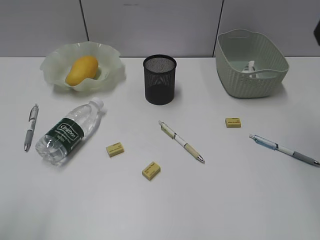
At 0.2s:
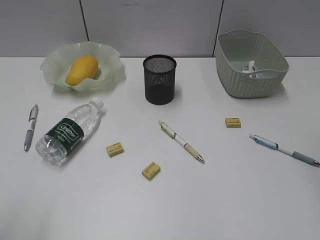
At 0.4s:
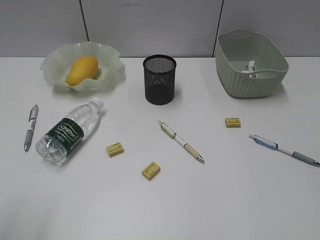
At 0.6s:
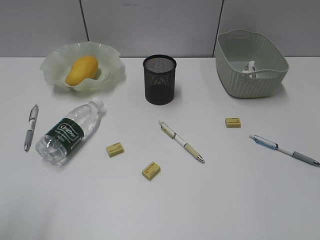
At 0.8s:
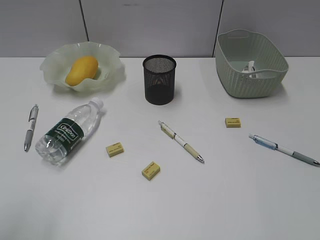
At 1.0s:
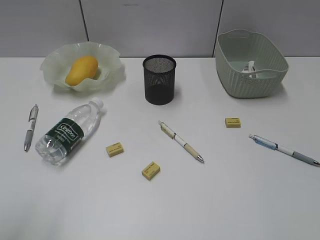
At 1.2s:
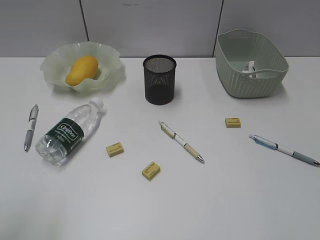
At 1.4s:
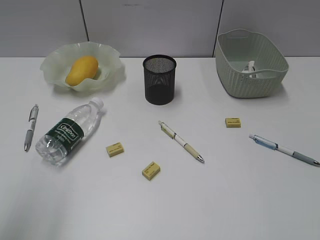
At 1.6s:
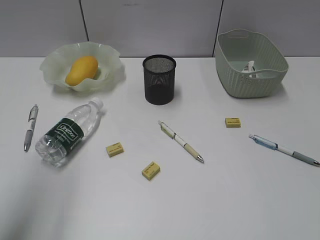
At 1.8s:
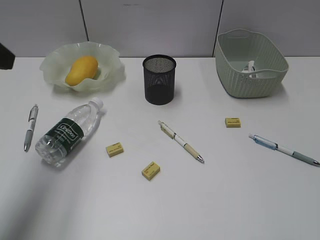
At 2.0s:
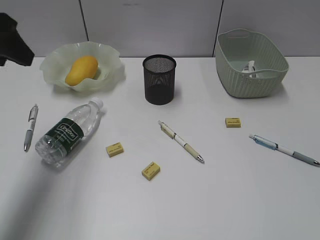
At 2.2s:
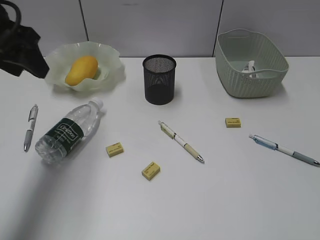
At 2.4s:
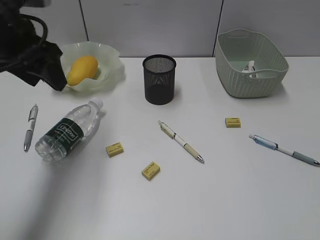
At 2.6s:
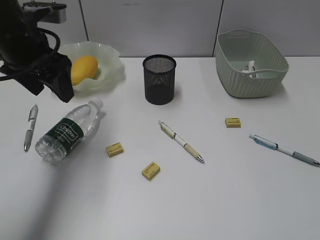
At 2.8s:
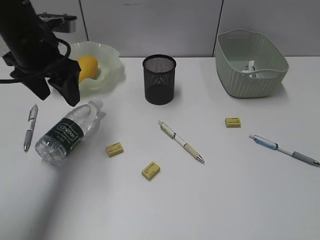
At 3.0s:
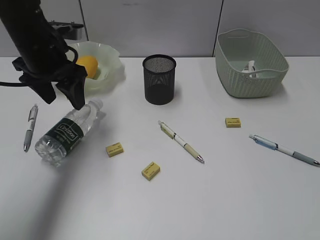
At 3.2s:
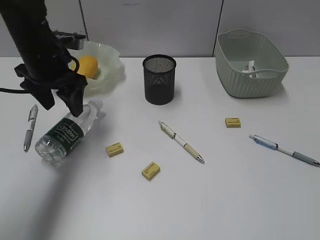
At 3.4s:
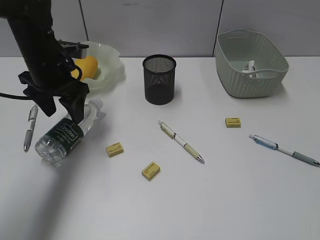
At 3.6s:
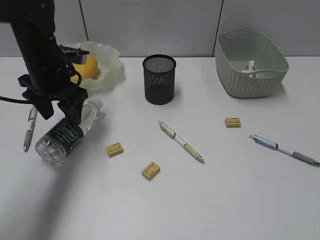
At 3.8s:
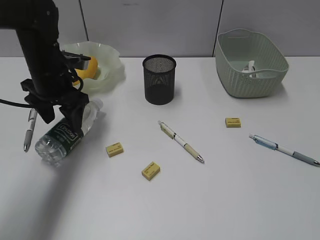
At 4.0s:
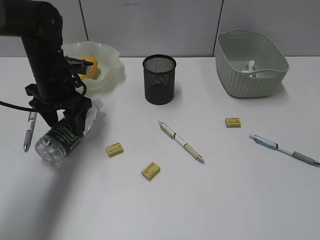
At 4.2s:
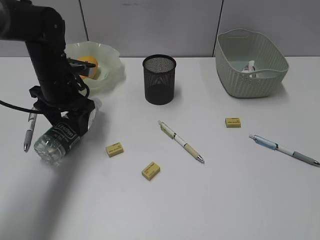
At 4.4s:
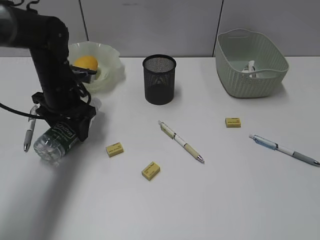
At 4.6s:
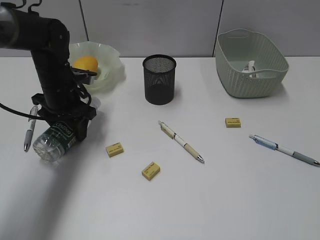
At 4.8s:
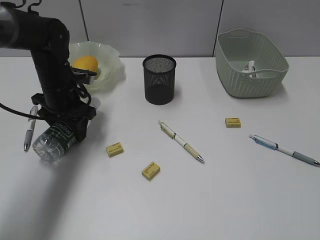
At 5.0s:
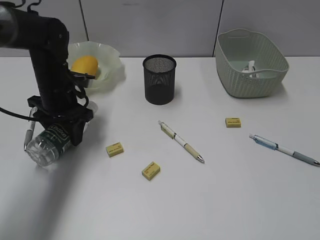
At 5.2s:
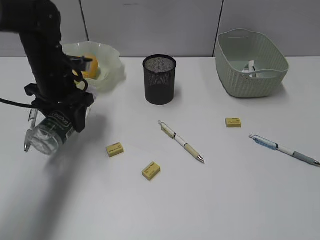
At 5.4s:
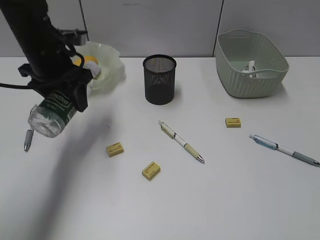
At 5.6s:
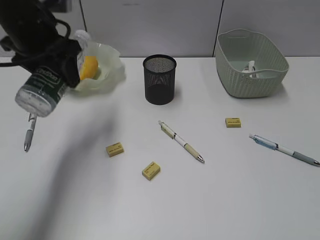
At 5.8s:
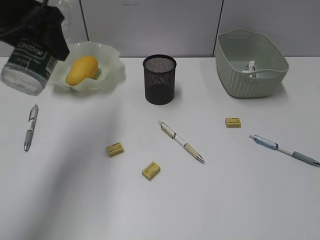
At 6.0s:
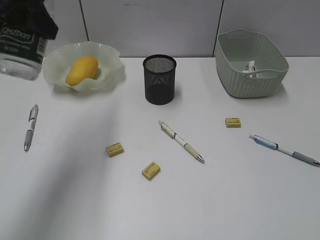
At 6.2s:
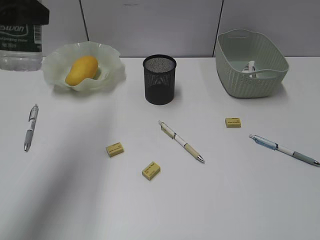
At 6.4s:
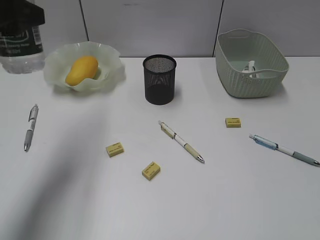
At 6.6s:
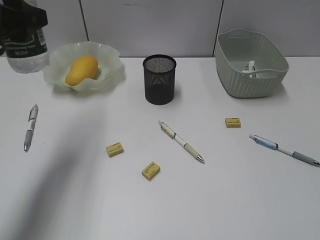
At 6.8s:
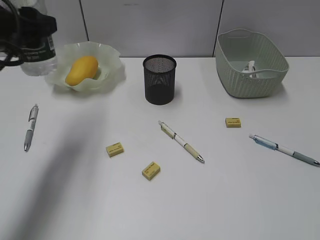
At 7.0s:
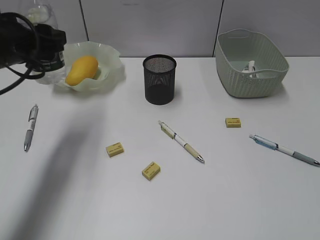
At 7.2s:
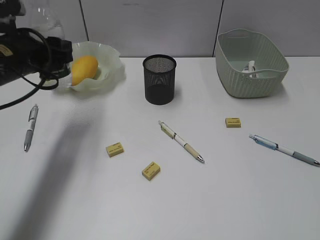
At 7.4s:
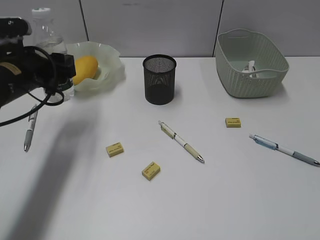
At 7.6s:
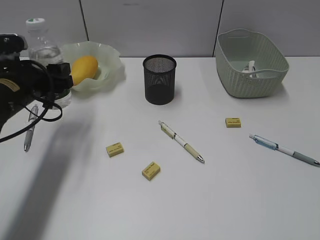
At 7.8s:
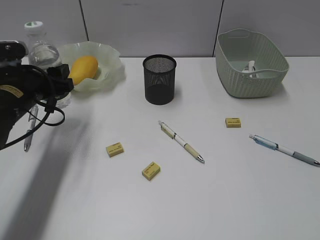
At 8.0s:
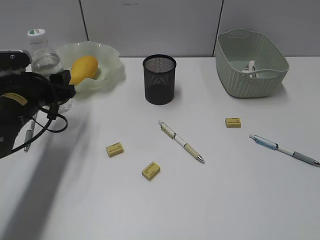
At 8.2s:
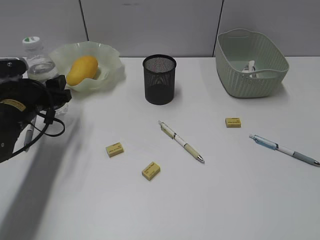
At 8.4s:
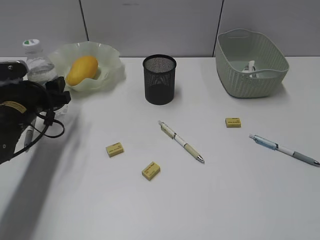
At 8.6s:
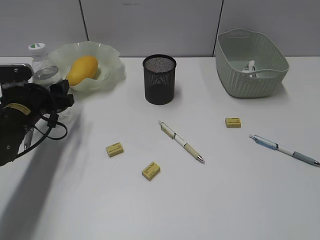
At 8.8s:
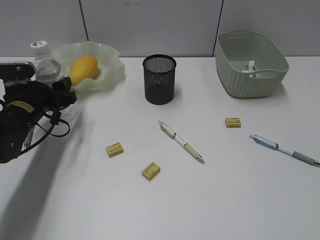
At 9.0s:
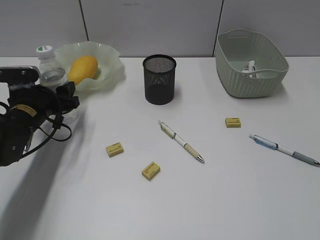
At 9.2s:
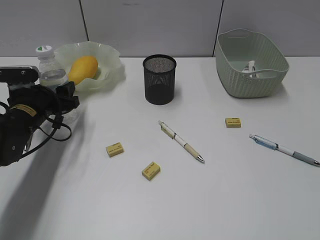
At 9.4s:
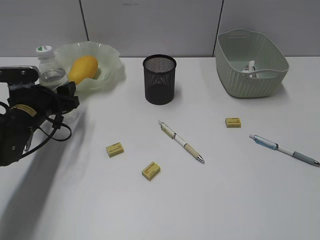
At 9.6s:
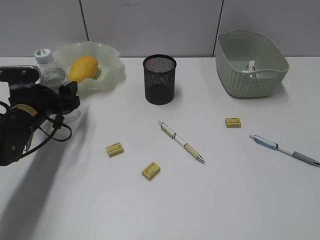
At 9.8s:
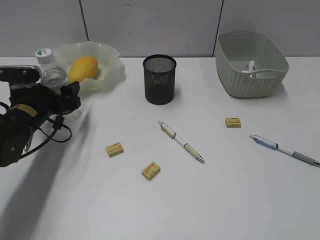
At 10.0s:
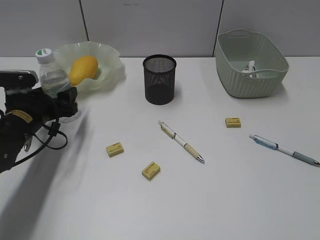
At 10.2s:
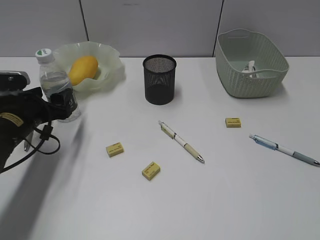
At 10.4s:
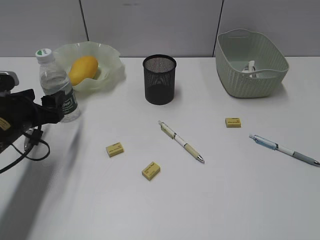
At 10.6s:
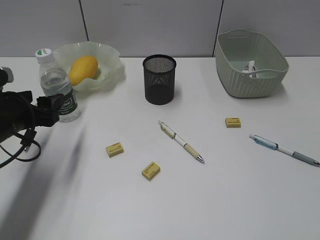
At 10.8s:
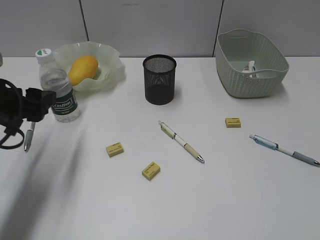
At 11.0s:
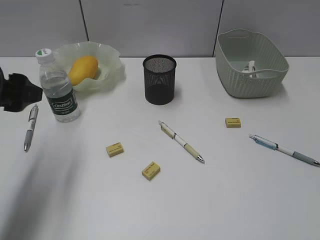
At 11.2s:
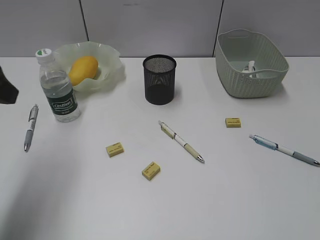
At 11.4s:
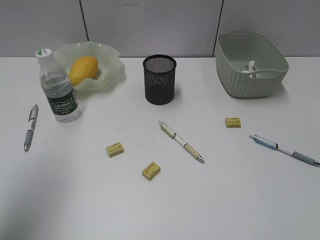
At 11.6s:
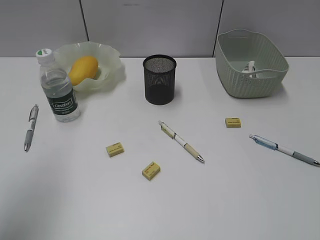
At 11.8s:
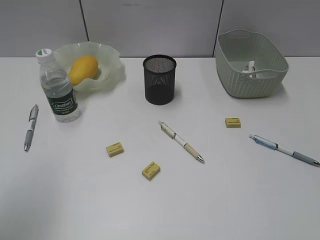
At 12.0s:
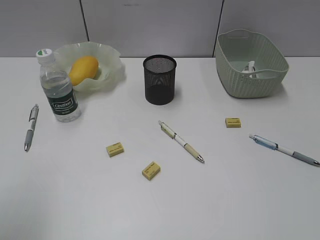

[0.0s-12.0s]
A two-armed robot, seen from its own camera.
Step, 0.0s to 4.6s: Grasp the bottle with left gripper.
Step, 4.8s to 10.2s: Stand the bottle with left gripper.
0.0s to 1.6s: The left gripper is displaced forward by approximately 10 cm.
1.6s to 3.0s: The left gripper is displaced forward and downward by about 25 cm.
3.0s to 4.4s: The left gripper shifts some 10 cm downward.
4.4s to 6.0s: The left gripper travels upward and backward by roughly 25 cm.
6.0s to 7.6s: The left gripper travels downward by some 20 cm.
7.6s to 9.0s: The left gripper goes some 5 cm downward.
9.0s to 10.4s: The left gripper moves backward, approximately 5 cm.
10.4s to 12.0s: The left gripper moves upward and backward, about 30 cm.

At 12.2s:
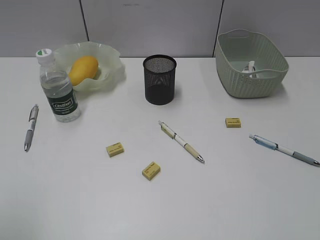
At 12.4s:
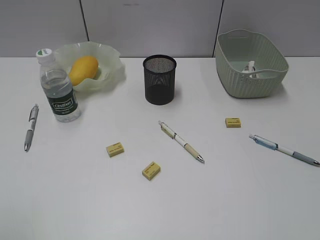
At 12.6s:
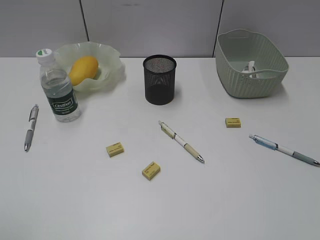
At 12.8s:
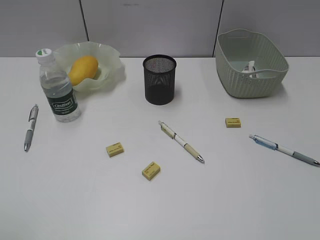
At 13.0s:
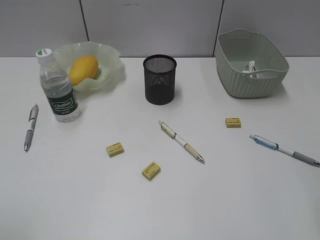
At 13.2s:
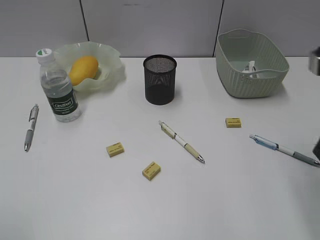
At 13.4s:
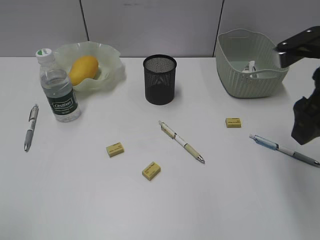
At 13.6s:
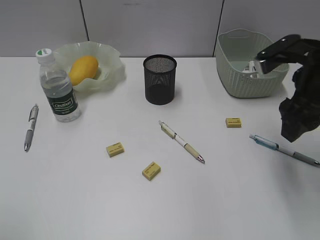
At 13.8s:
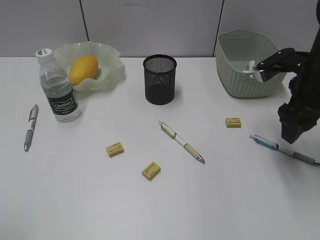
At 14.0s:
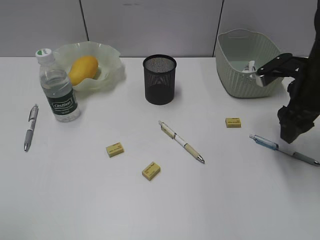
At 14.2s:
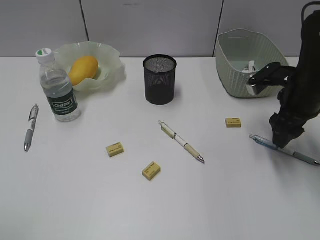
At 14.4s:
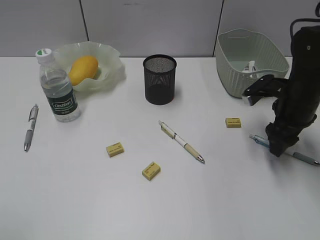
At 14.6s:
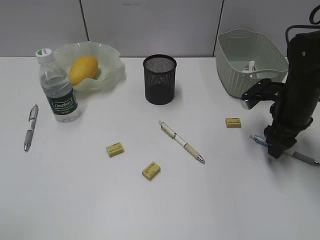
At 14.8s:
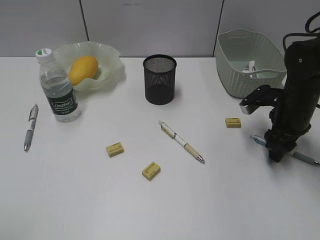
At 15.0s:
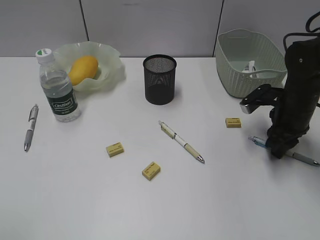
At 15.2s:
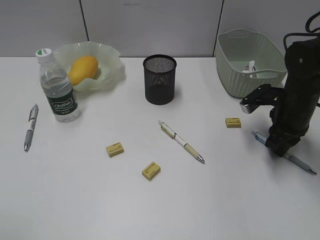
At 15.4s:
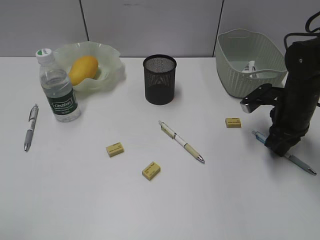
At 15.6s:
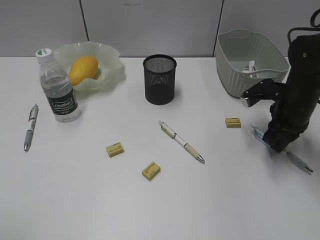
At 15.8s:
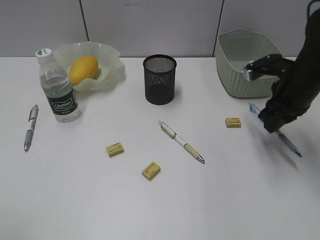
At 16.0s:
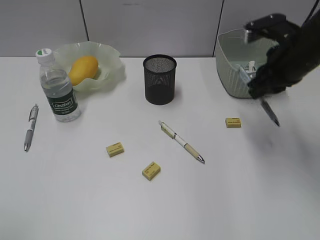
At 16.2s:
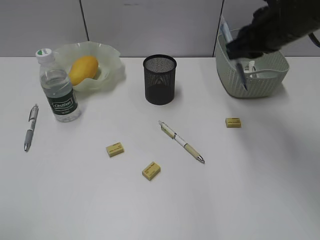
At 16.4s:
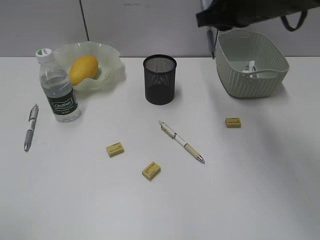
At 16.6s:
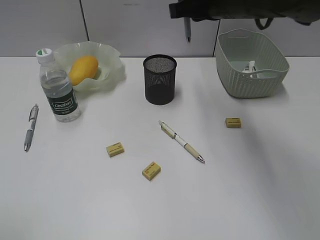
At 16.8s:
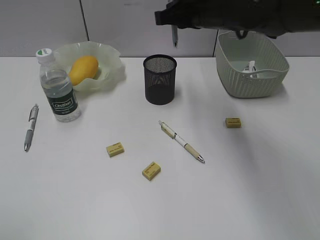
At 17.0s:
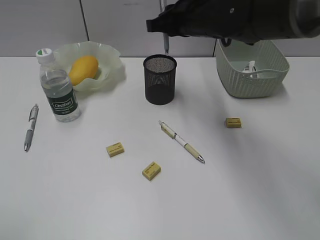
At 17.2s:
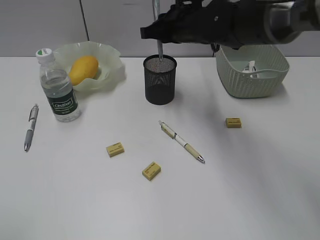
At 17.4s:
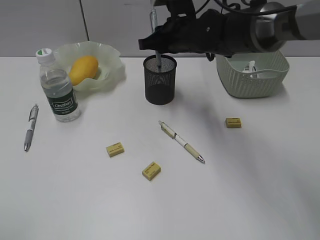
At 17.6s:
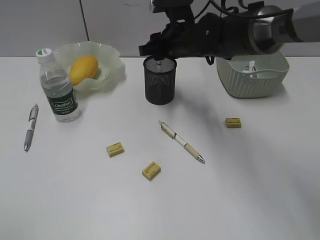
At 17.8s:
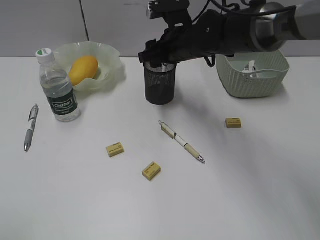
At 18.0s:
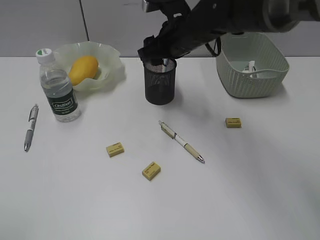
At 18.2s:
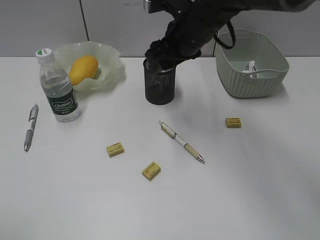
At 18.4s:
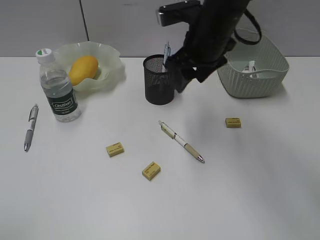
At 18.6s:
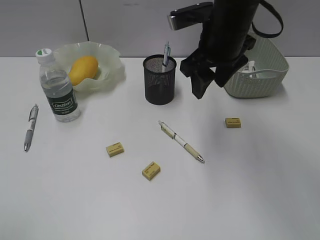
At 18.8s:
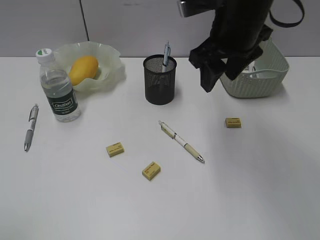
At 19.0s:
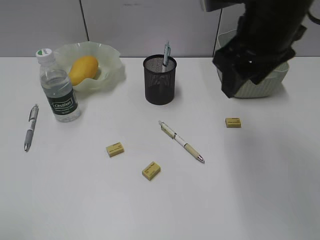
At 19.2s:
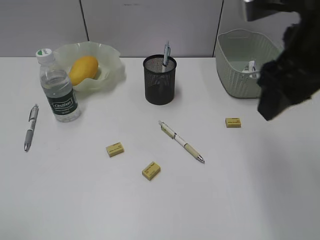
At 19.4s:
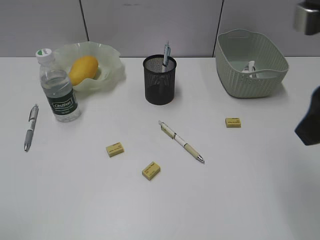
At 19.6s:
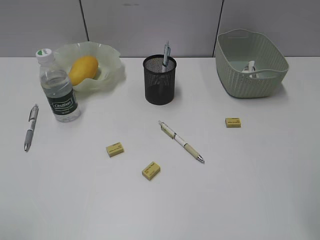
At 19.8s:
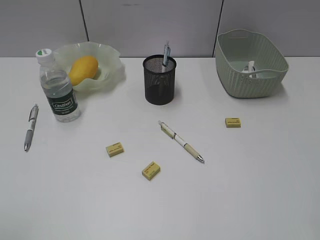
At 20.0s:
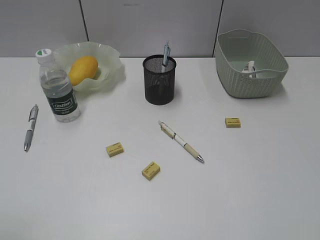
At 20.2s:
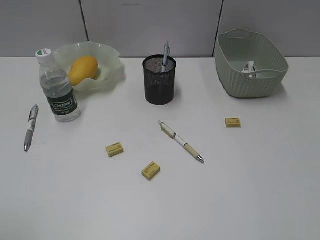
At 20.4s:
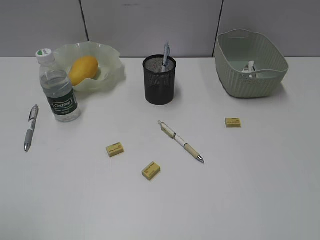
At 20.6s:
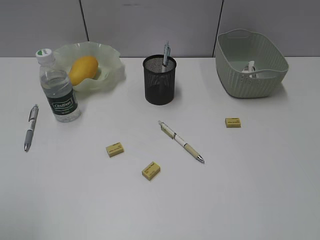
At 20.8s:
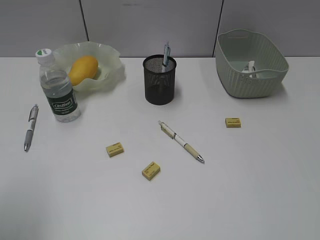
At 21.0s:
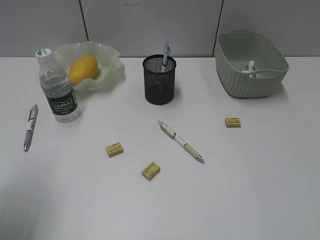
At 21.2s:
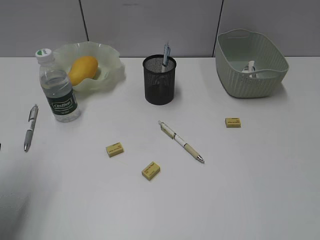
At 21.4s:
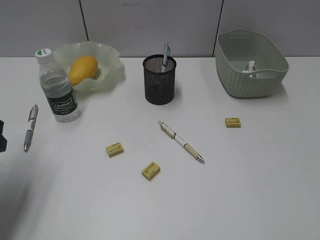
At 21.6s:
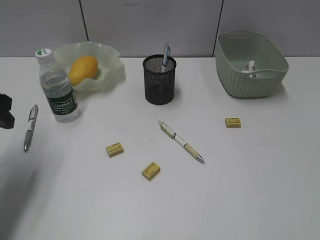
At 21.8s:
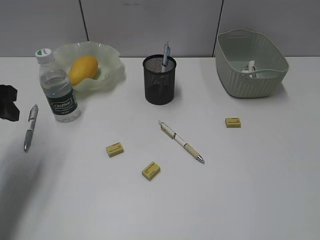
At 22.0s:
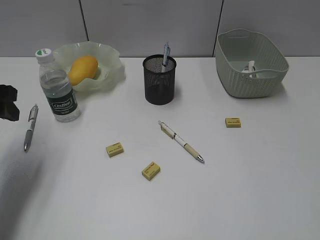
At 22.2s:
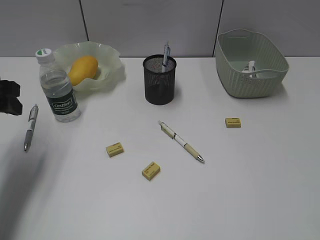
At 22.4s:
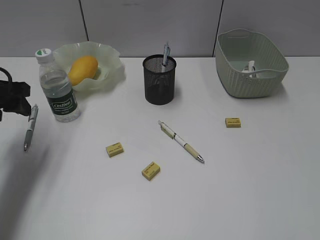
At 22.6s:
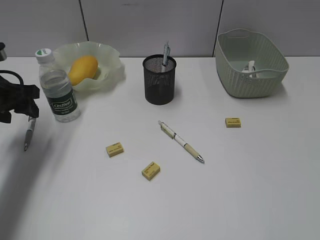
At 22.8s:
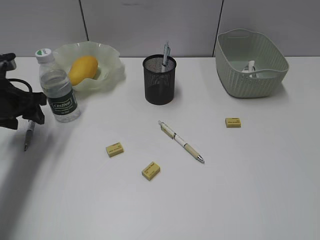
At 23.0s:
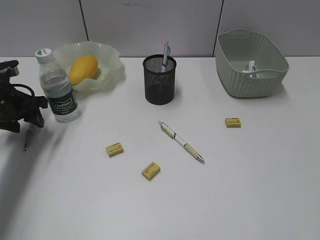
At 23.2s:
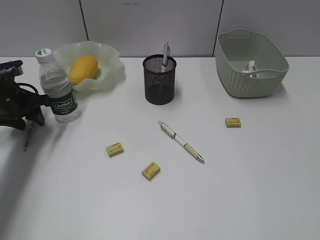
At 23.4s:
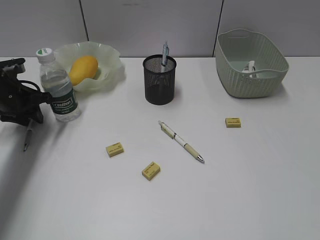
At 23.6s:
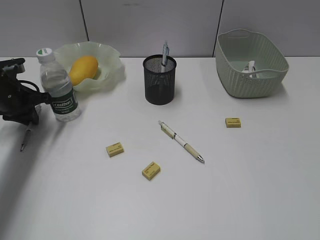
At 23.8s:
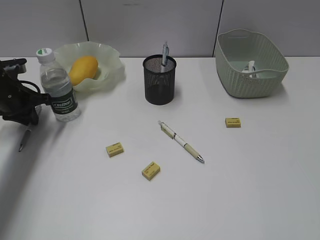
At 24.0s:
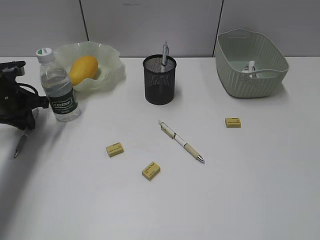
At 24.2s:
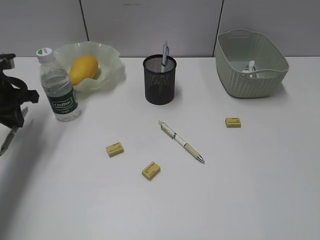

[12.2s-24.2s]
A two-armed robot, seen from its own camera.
Step, 12.2s to 15.4s: Grasp the blue pen with right gripper.
Step, 15.6s to 17.6s: Place the blue pen in pen holder with right gripper.
Step, 17.8s to 23.8s: Grasp the gray pen with left gripper.
12.2s to 13.8s: The right gripper is displaced forward by roughly 30 cm.
13.8s to 15.2s: The right gripper is displaced downward by approximately 10 cm, and closes up.
15.2s to 16.6s: The right gripper moves upward and to the left, some 25 cm.
16.6s to 18.2s: The right gripper is displaced downward by roughly 5 cm, and opens up.
18.2s to 19.8s: The right gripper is displaced backward and to the right by some 35 cm.
19.8s to 21.2s: The left gripper travels forward by roughly 15 cm.
21.2s to 22.6s: The left gripper is displaced forward by approximately 15 cm.
22.6s to 24.2s: The left gripper closes its fingers.
